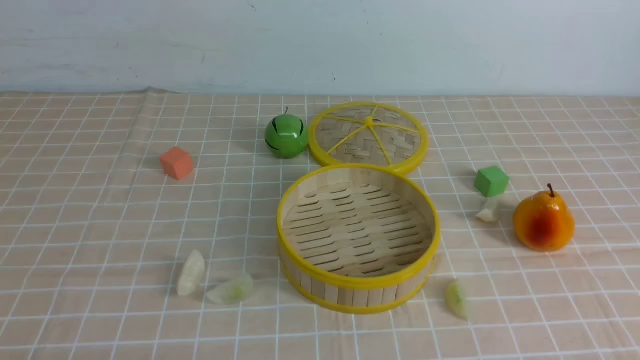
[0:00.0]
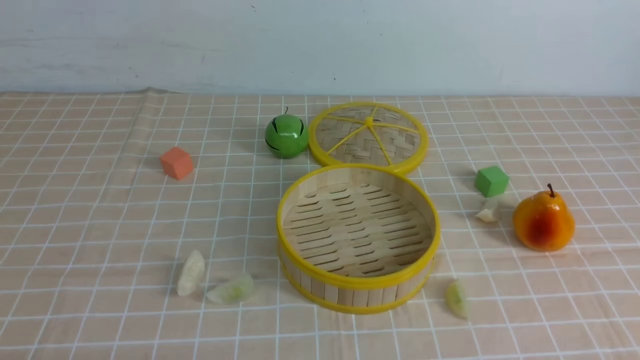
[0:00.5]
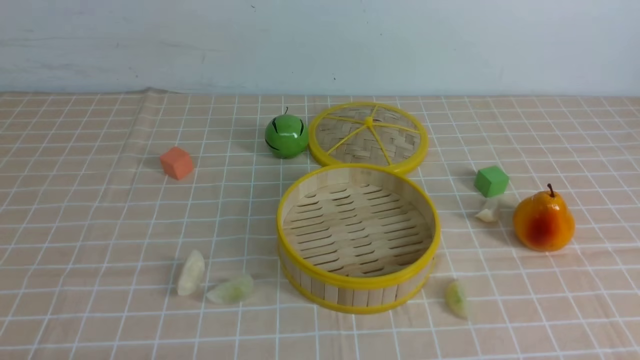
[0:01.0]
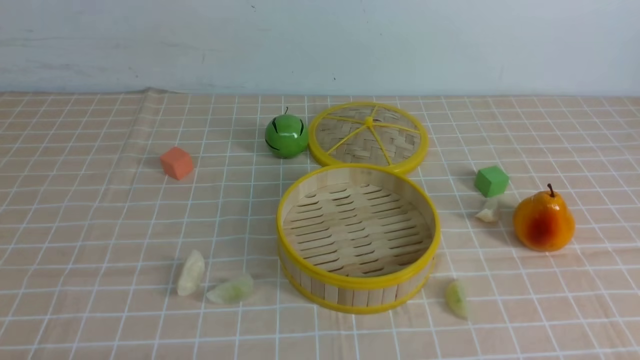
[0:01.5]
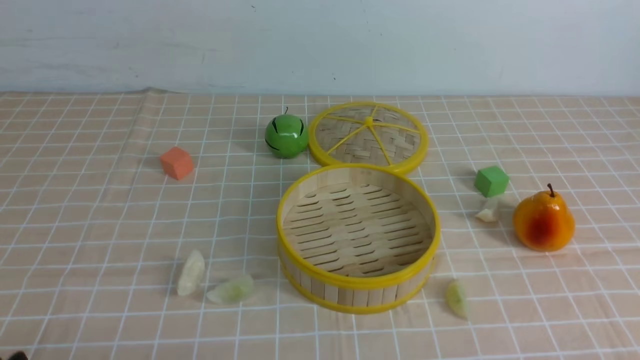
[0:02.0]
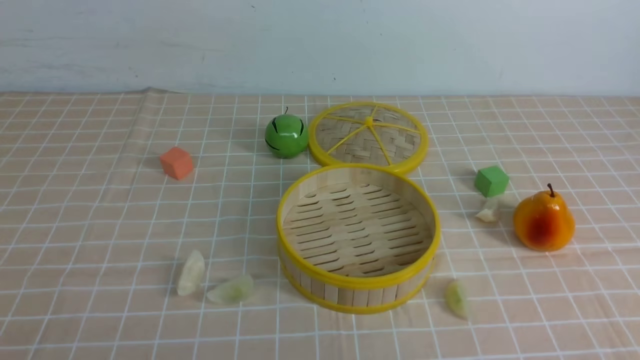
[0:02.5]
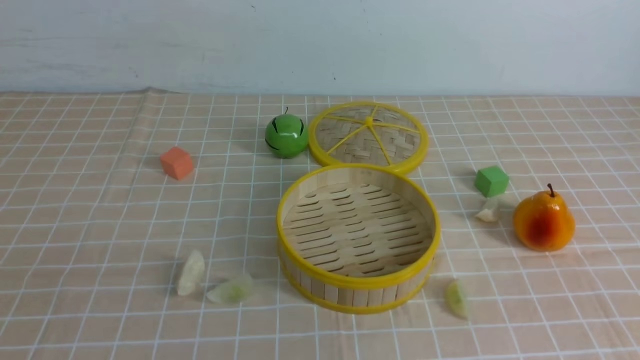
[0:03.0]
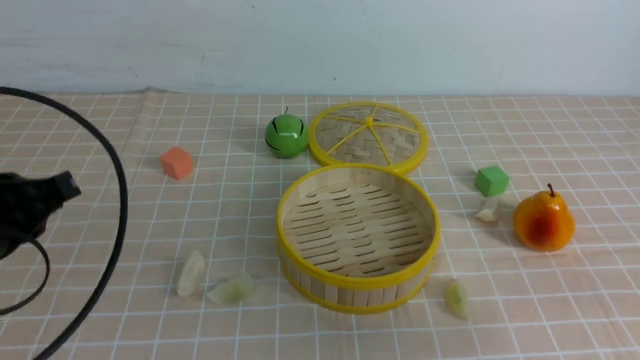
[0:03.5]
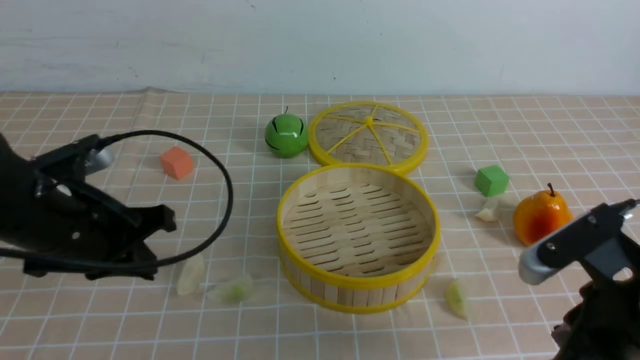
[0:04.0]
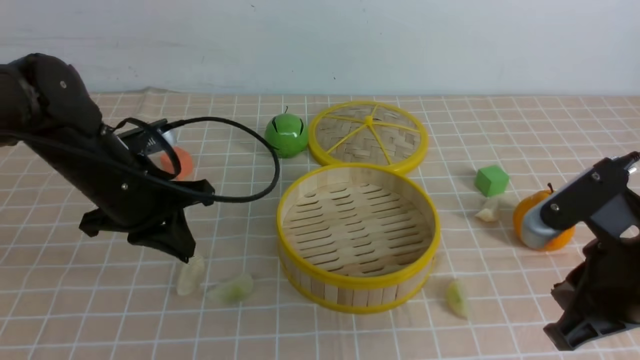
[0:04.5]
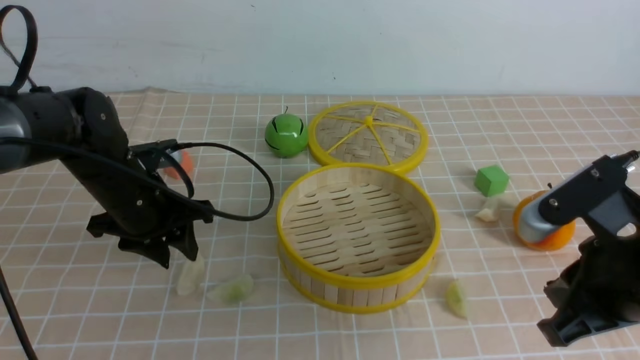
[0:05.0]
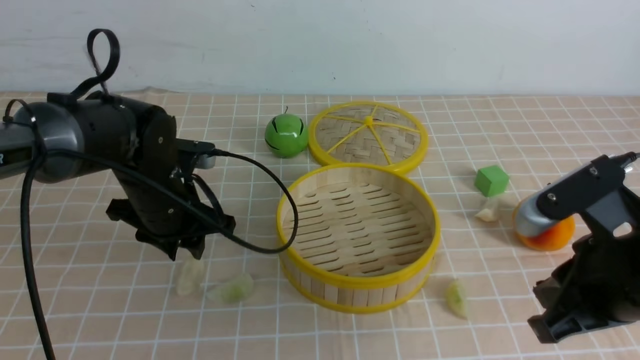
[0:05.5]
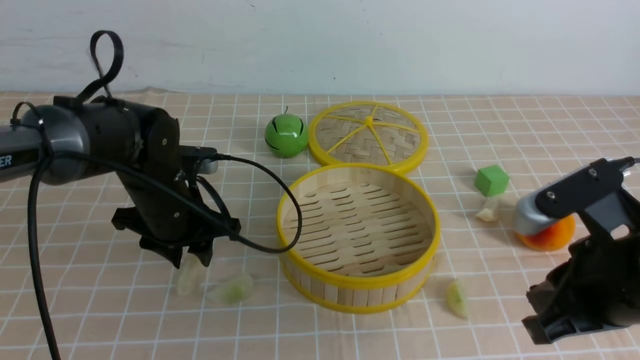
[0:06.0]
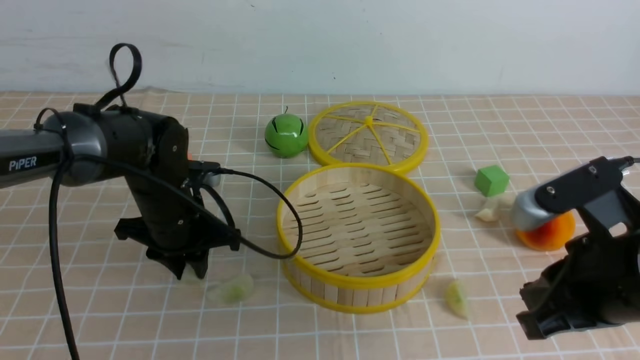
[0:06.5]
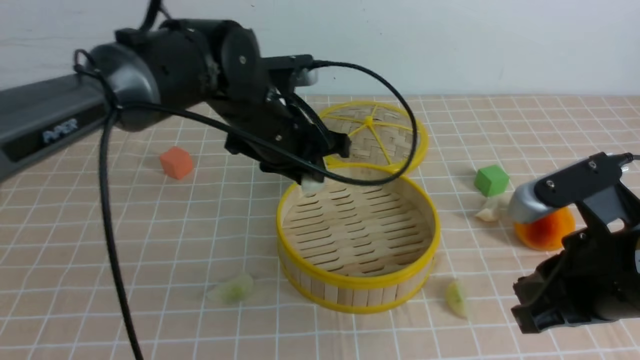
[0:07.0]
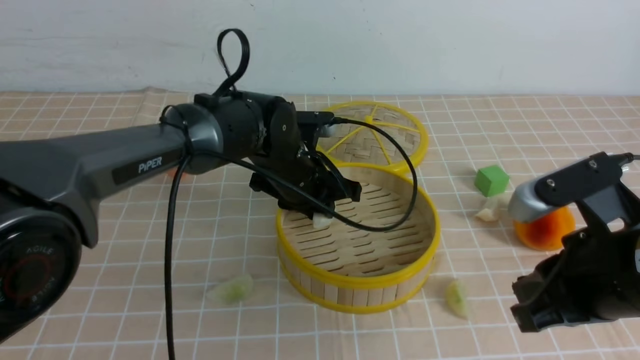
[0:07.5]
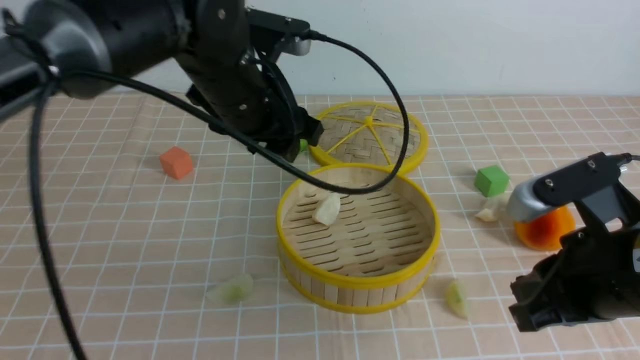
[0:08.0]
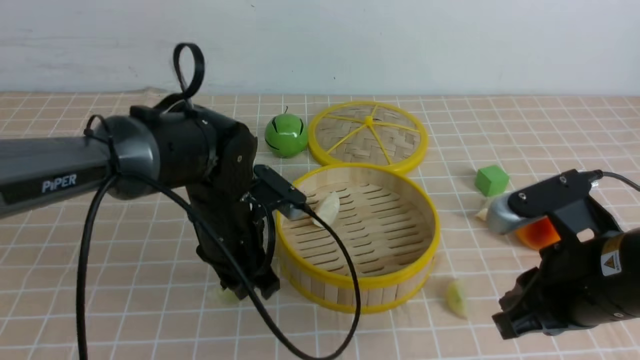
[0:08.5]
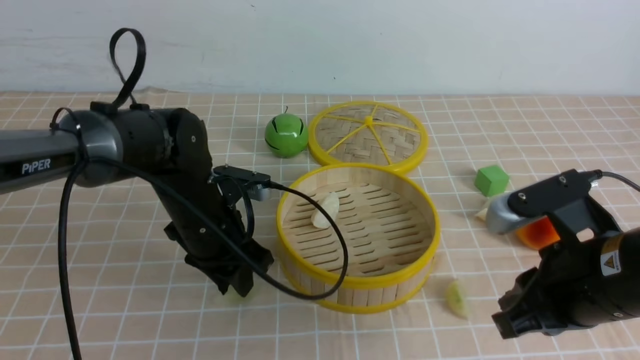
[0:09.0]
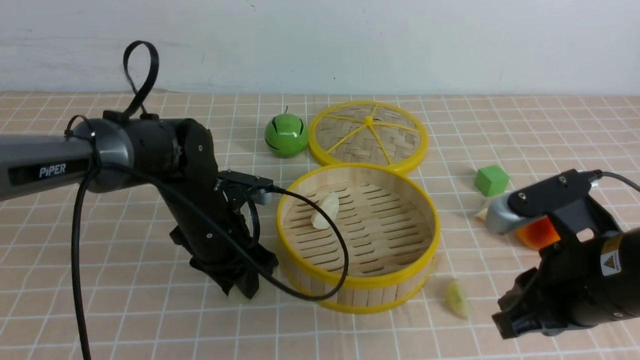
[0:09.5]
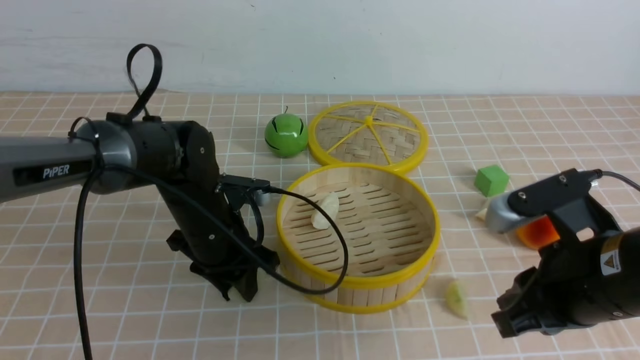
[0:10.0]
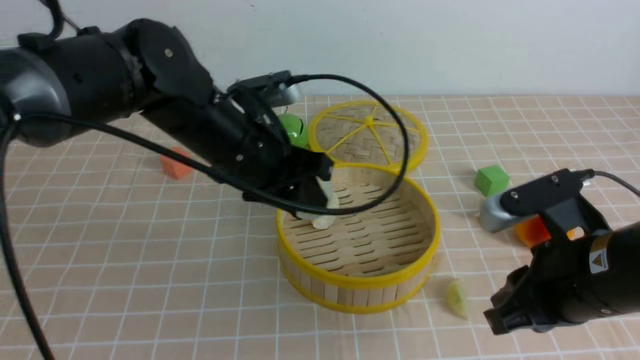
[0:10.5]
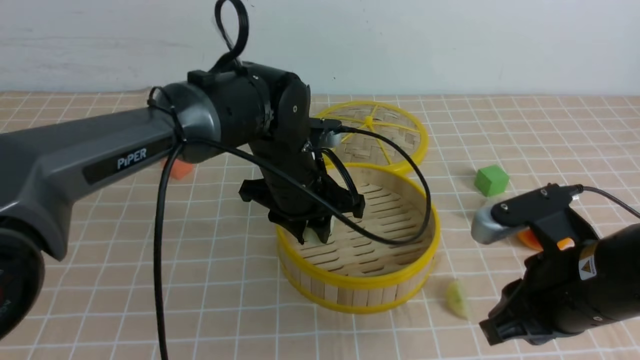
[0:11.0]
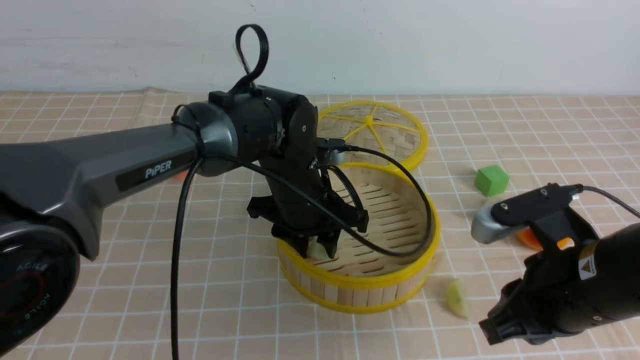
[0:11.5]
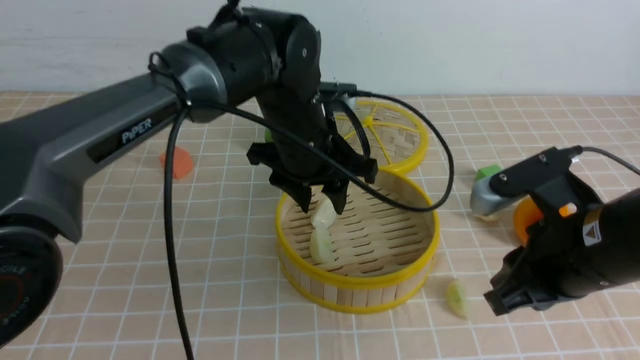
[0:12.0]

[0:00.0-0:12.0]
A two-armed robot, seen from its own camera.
Task of the whole recording: put the dumplings into the steamer on the table with the brown tablecloth.
Step, 0:00.0 to 0:06.0: use the left arm to grab a dumpling.
Step, 0:06.5 to 0:07.5: use the left arm to put the dumpling into the steamer.
Step, 0:08.0 to 0:10.0: use the left arm to grab a dumpling.
Step, 0:10.5 to 0:11.5: use the left arm to put the dumpling into the steamer.
0:02.0 to 0:04.0: The right gripper travels forward, to the left and upward by some 15 cm, and closes. The left gripper moves forward, about 20 cm, and closes up.
0:04.0 to 0:06.0: The left gripper is displaced forward, downward and to the right by some 15 cm, and opens up.
0:06.0 to 0:08.0: The left gripper goes about 15 cm upward and to the right.
0:08.0 to 0:10.0: The left gripper moves downward and to the left, roughly 10 cm, and closes up.
0:10.0 to 0:12.0: The left gripper swings up and down, approximately 10 cm each way, with 2 reversals.

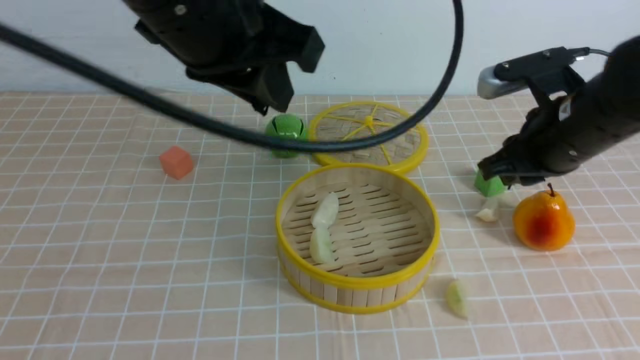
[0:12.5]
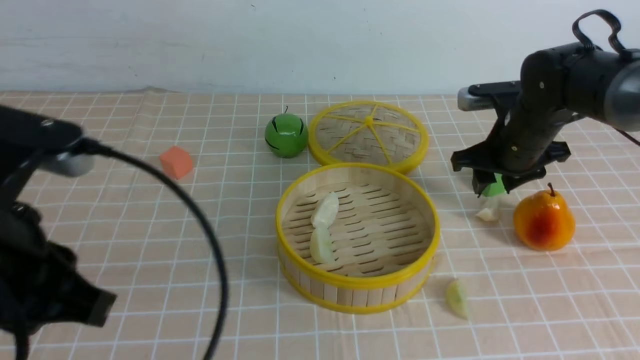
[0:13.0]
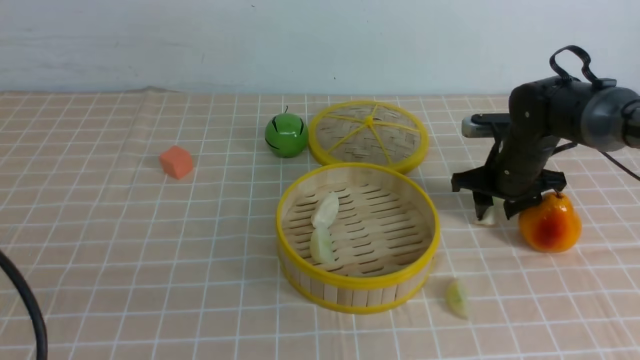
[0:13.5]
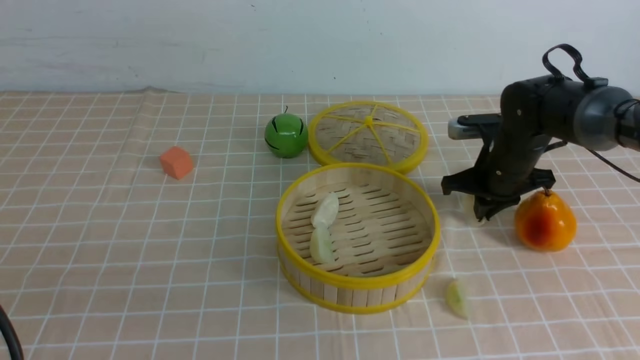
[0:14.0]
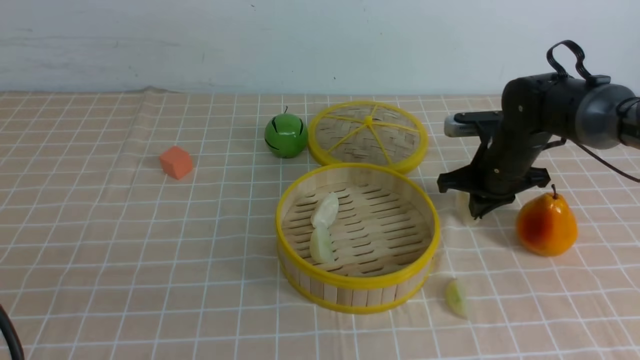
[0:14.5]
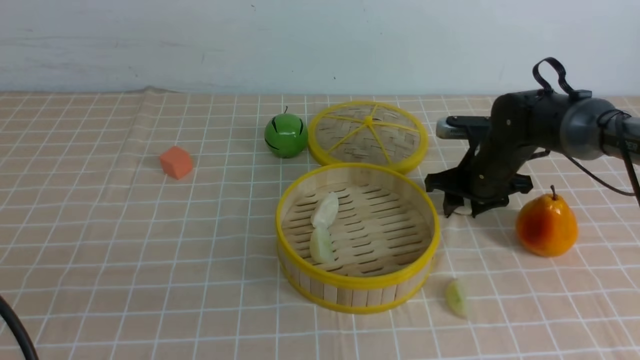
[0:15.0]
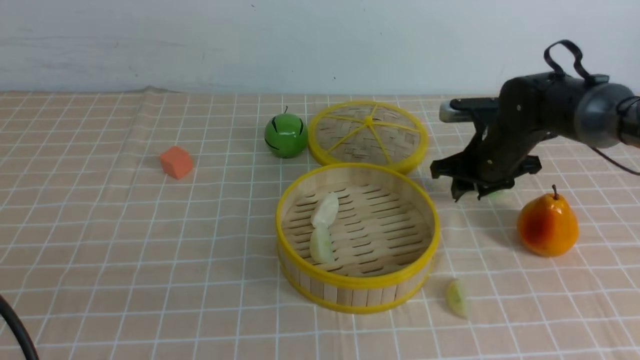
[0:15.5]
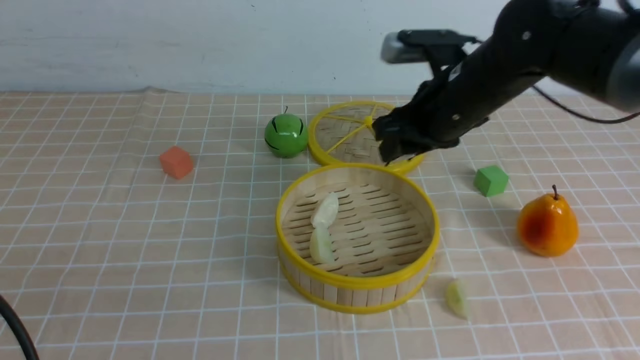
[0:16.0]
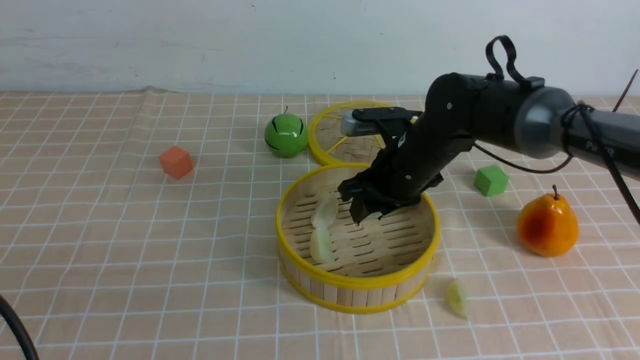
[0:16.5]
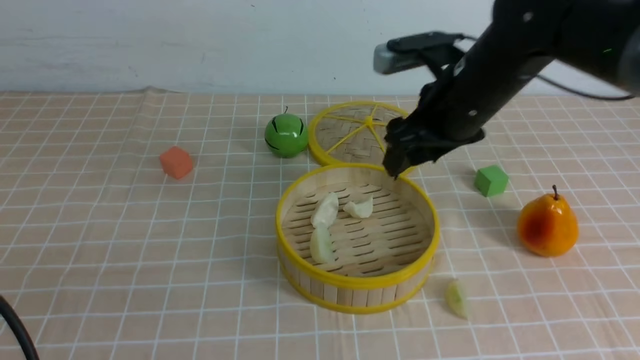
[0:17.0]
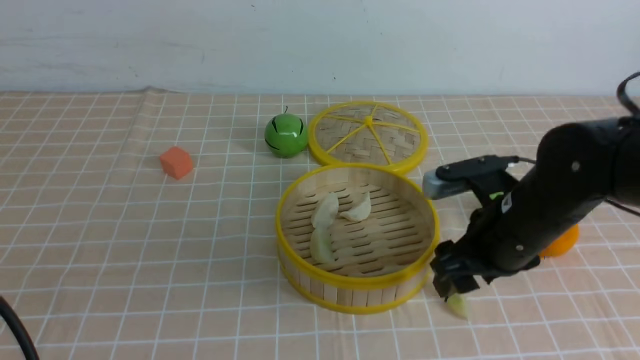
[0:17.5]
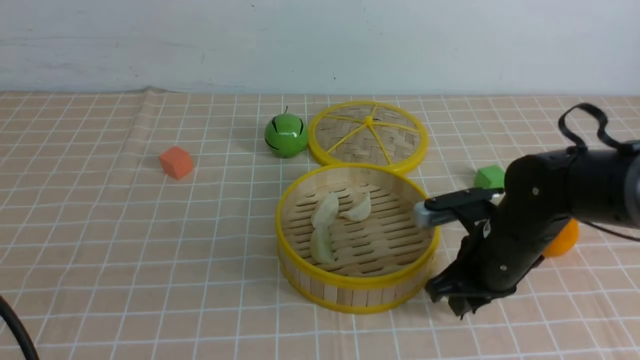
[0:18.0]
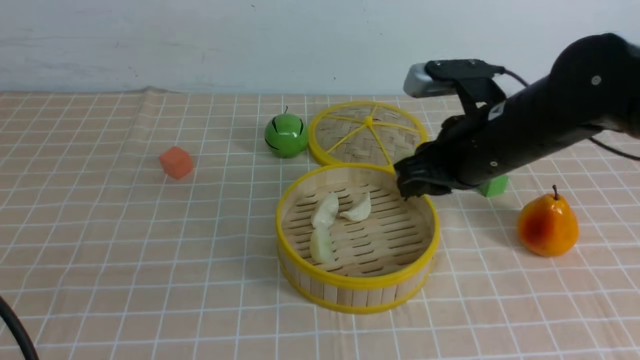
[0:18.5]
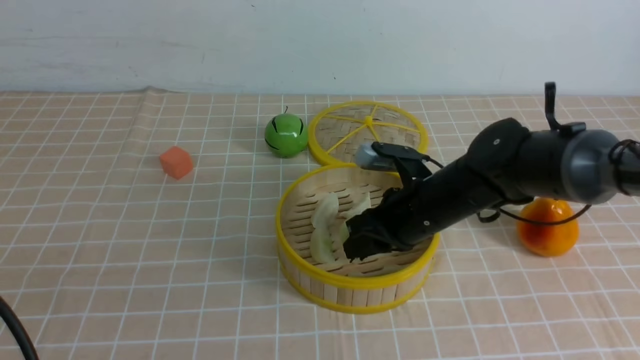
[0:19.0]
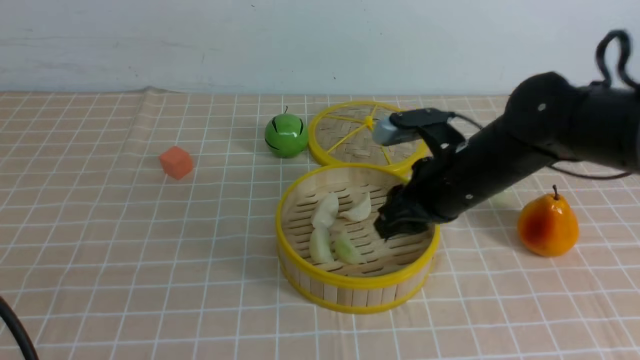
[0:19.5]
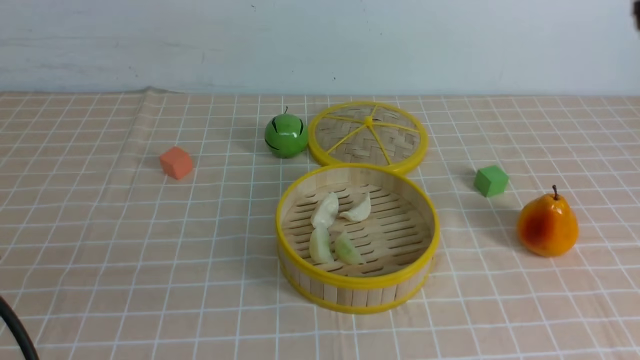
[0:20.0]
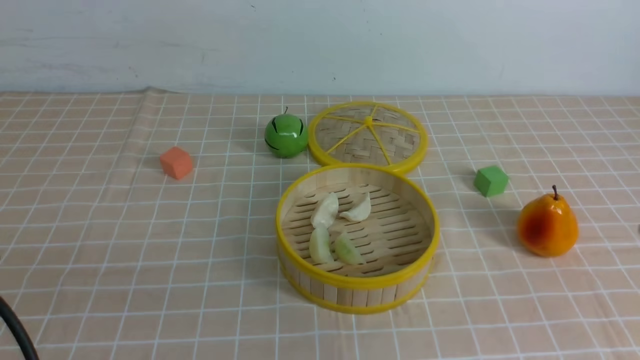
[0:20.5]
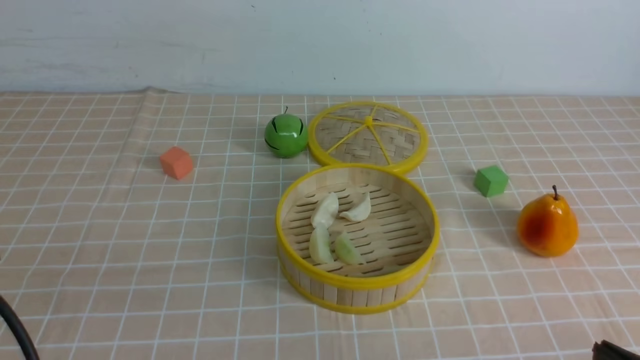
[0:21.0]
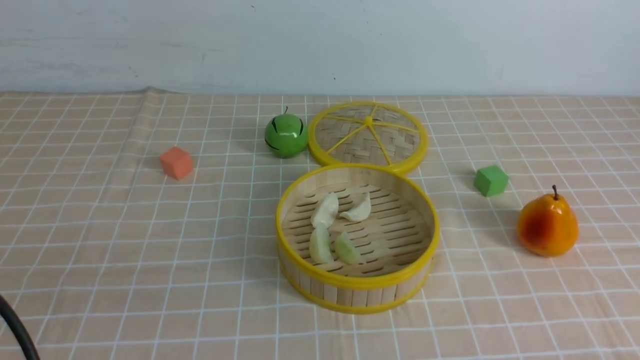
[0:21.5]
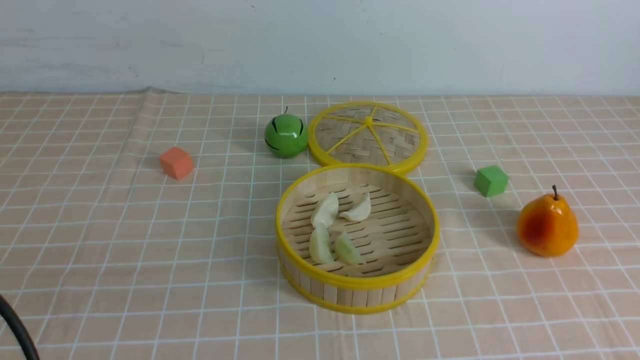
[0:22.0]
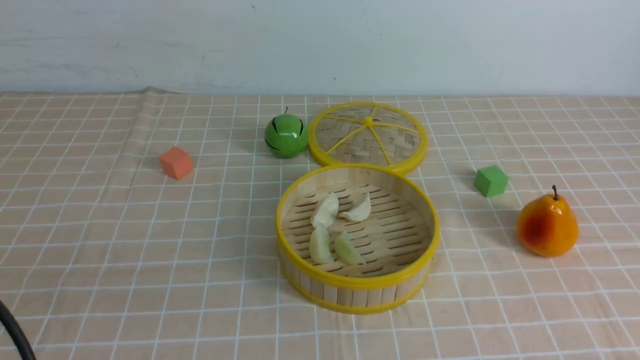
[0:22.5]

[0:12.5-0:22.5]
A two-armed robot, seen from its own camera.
Task of the whole recording: put the dumplings into the steamer on the table with the brown tablecloth.
Step, 0:12.5 to 0:15.0: use the right arm to grab a dumpling.
Step, 0:15.5 to 0:16.5: use the right arm to put the dumpling into the steamer.
Step, 0:17.0 to 0:17.5: use the right arm to grab a dumpling.
Step, 0:18.0 to 0:19.0: use the right arm to put the dumpling into the steamer.
0:12.5 to 0:14.5: The left gripper shifts some 25 cm backward, to the left and downward. The right gripper shifts some 15 cm downward and forward.
0:14.5 to 0:16.5: The right gripper moves to the left, roughly 10 cm, and opens its fingers.
0:16.5 to 0:18.5: The right gripper moves backward and upward, about 10 cm, and closes its fingers.
0:18.5 to 0:20.5: The right gripper is displaced backward and to the right by roughly 25 cm.
